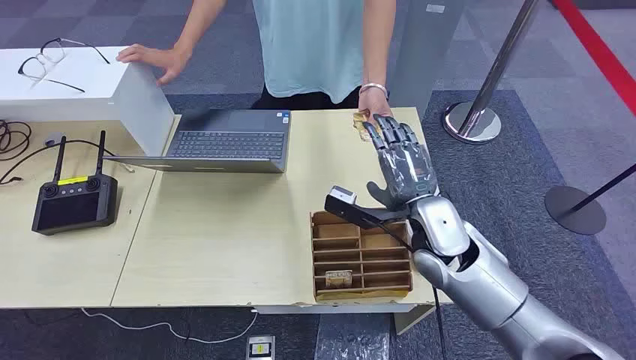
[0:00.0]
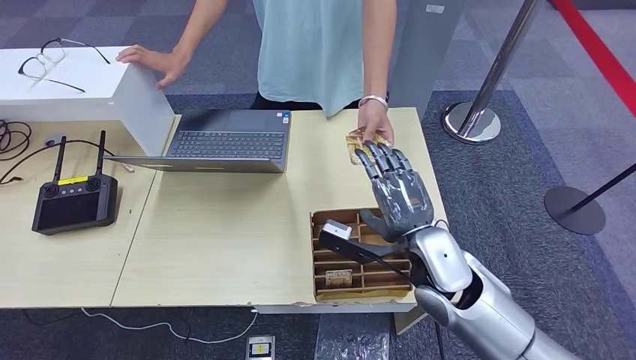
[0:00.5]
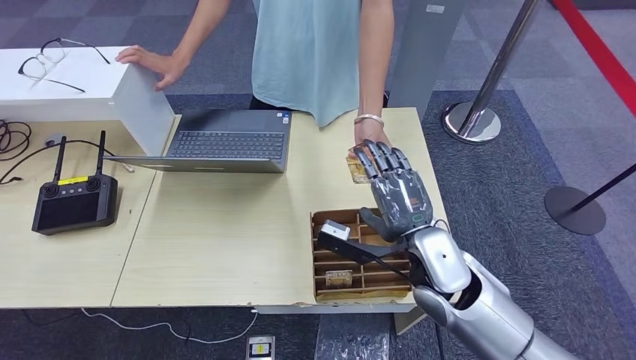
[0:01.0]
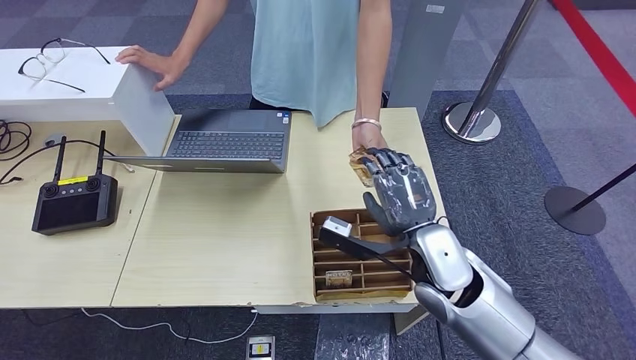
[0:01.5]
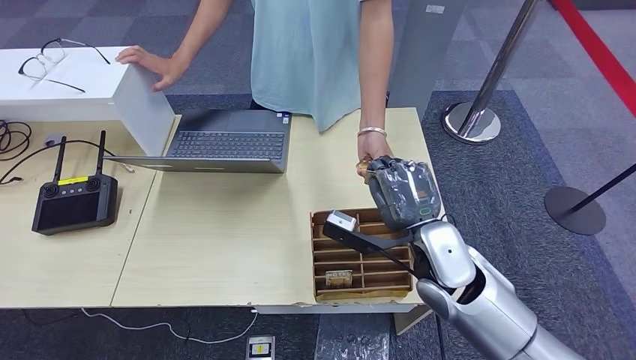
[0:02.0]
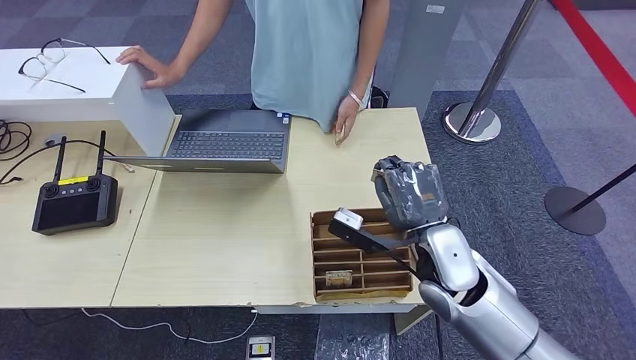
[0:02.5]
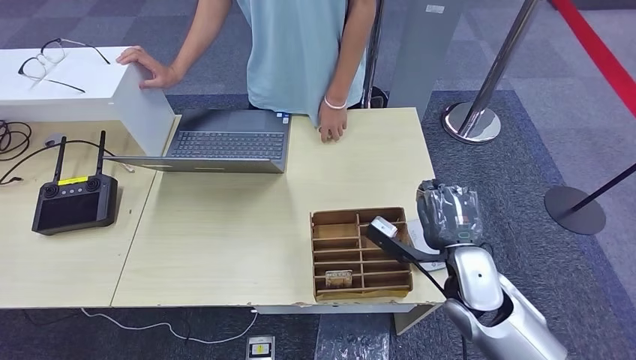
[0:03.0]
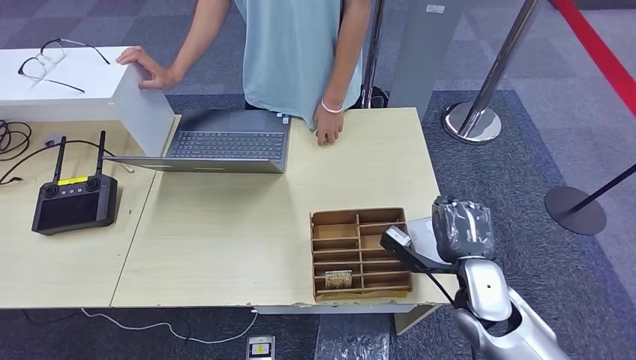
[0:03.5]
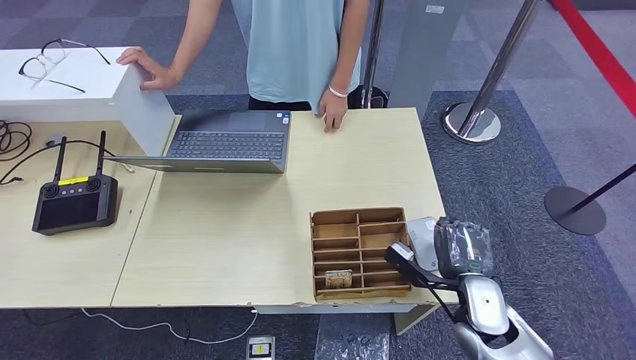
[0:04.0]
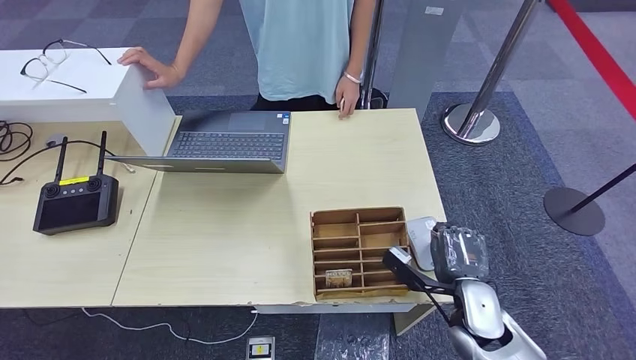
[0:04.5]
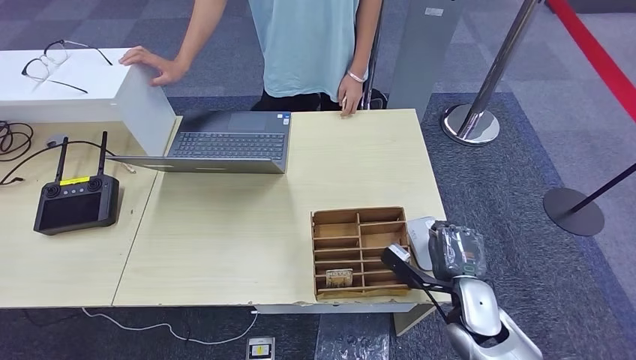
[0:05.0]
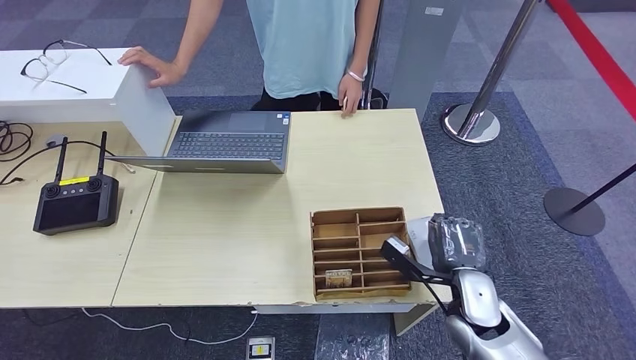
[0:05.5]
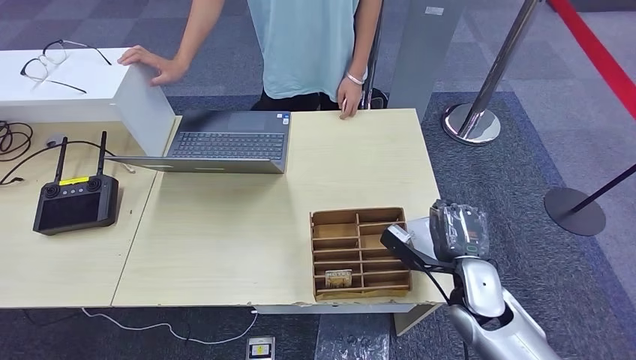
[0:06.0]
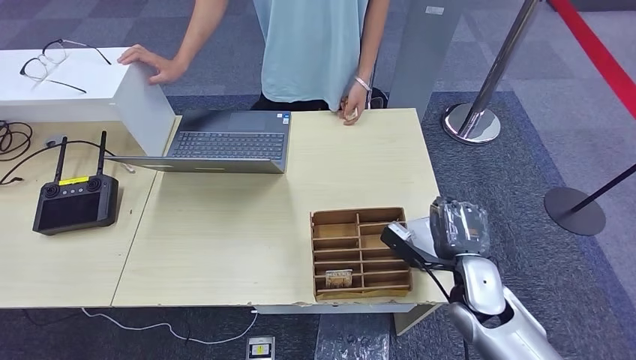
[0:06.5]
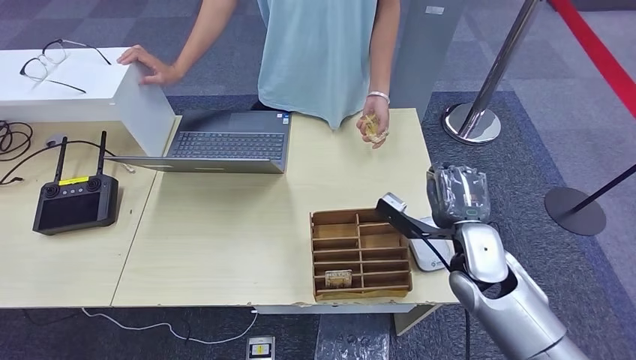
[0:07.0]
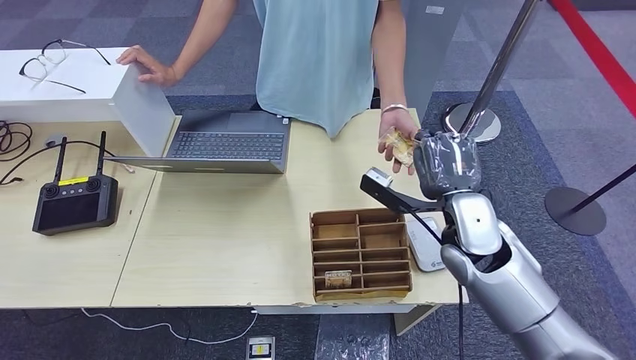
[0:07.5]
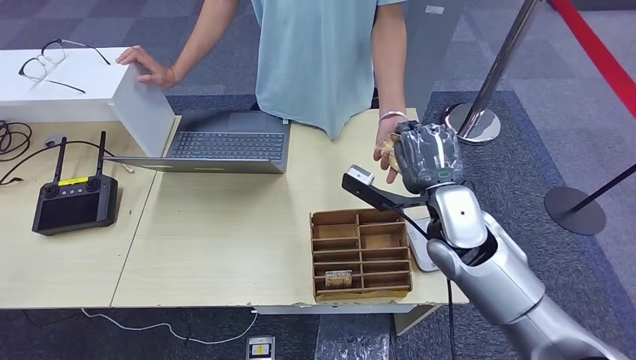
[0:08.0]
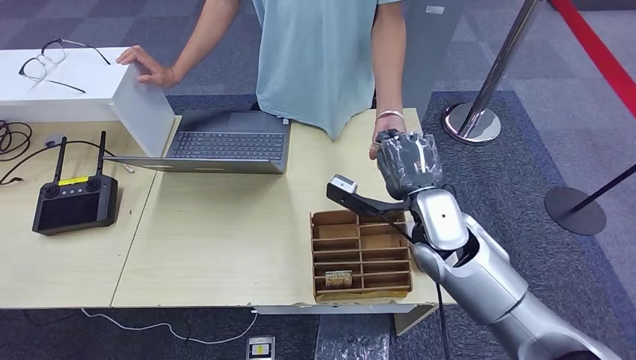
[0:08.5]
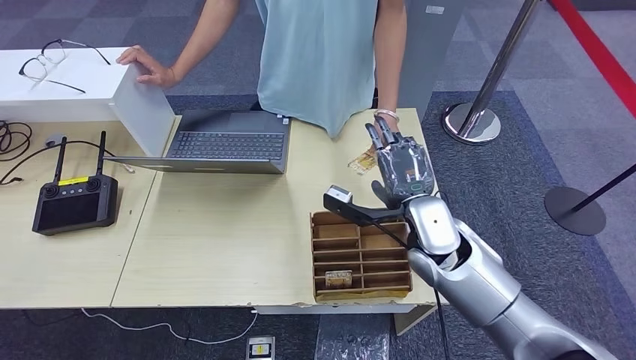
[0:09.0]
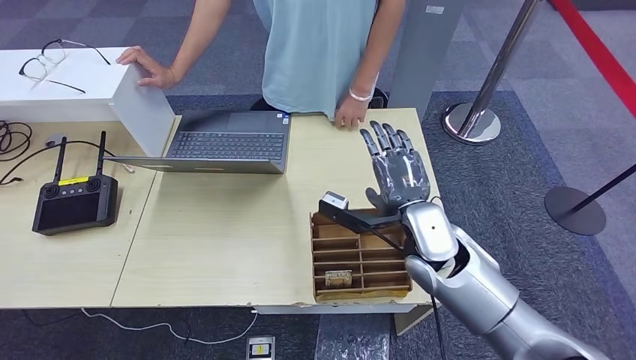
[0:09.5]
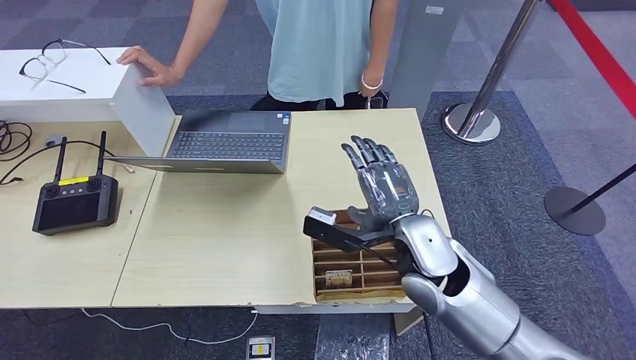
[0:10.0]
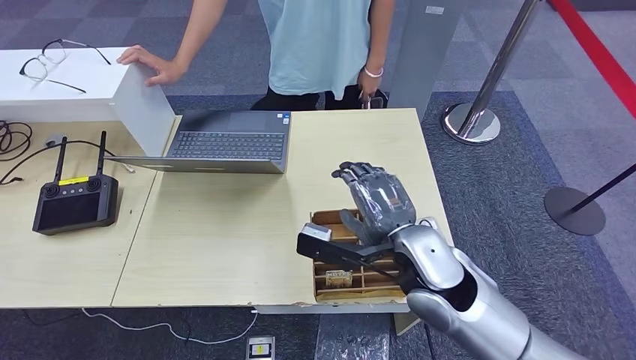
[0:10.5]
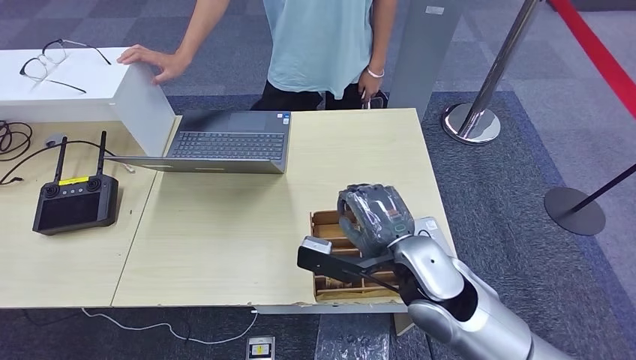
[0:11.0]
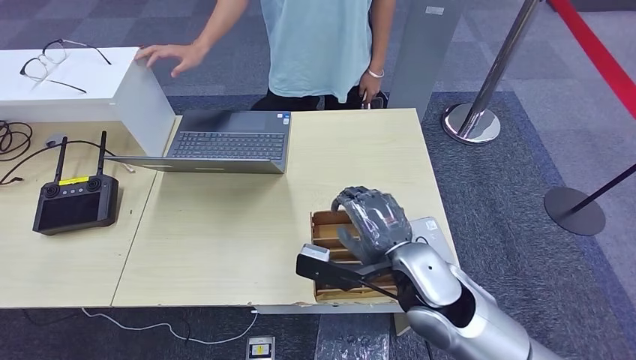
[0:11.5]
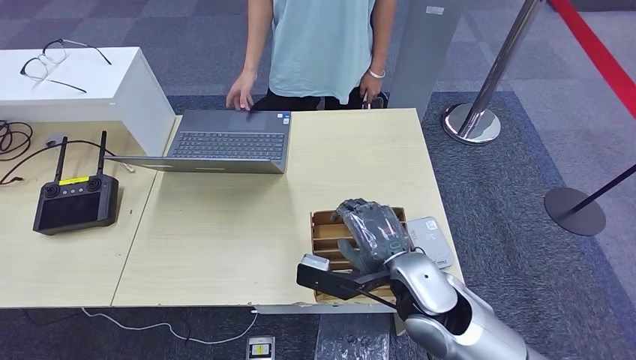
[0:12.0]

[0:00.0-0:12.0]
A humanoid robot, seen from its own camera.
Step, 0:00.0 to 0:02.5: Take the ID card from the person's hand.
Step, 0:03.0 to 0:04.5: Place the ID card on the card reader.
Step, 0:05.0 to 0:09.5: Hand the ID card to the person.
0:02.0 to 0:04.0: The right hand shifts approximately 15 cm downward and to the right.
0:04.0 to 0:06.0: The hands make only small movements.
0:06.0 to 0:08.0: The right hand travels upward, forward and to the left by about 15 cm.
0:08.0 to 0:10.0: The right hand travels to the left by approximately 5 cm.
0:10.0 to 0:12.0: The right hand ends up roughly 5 cm from where it was.

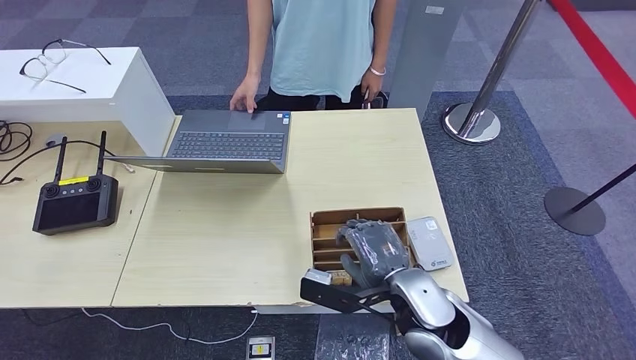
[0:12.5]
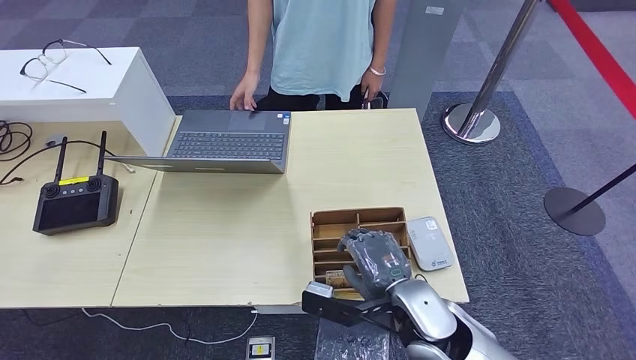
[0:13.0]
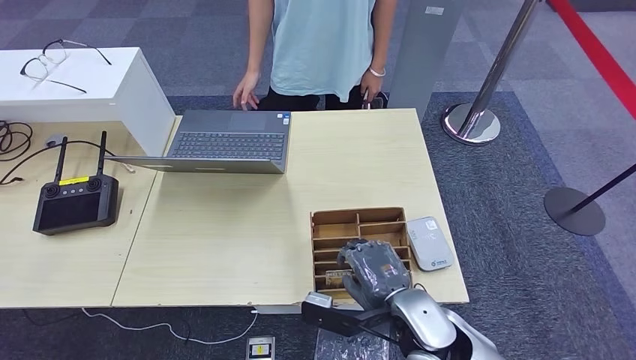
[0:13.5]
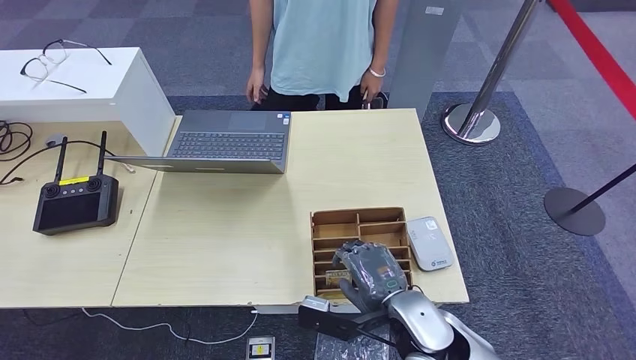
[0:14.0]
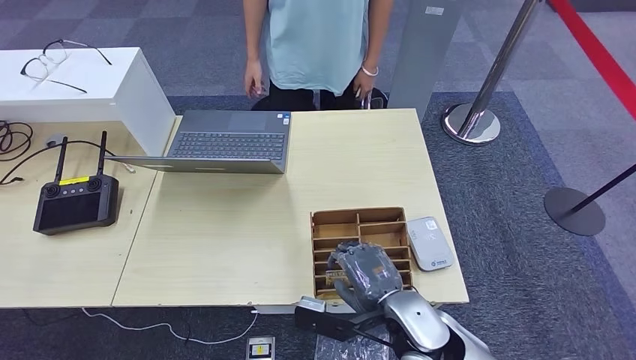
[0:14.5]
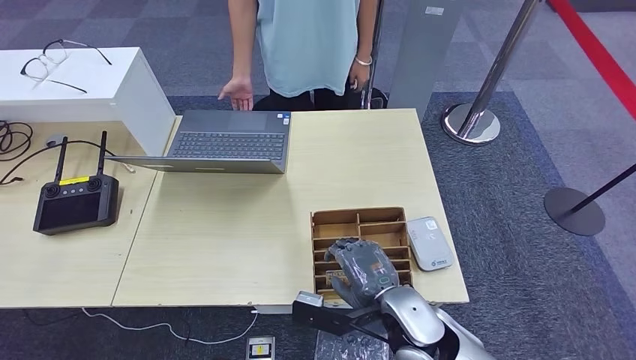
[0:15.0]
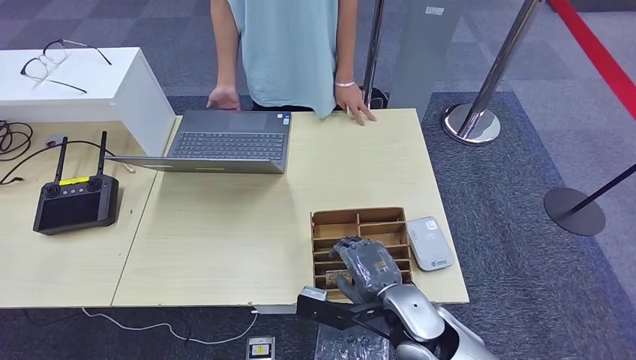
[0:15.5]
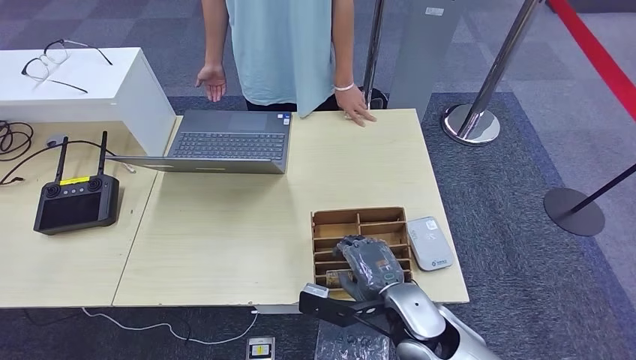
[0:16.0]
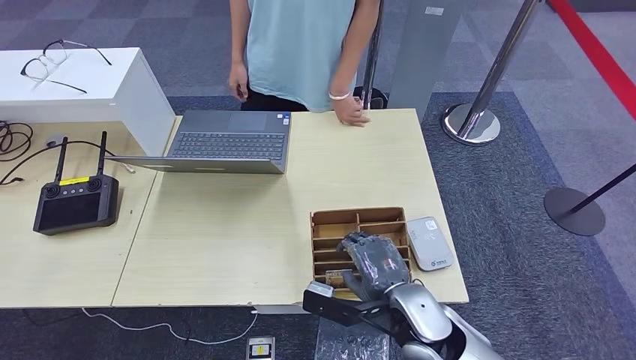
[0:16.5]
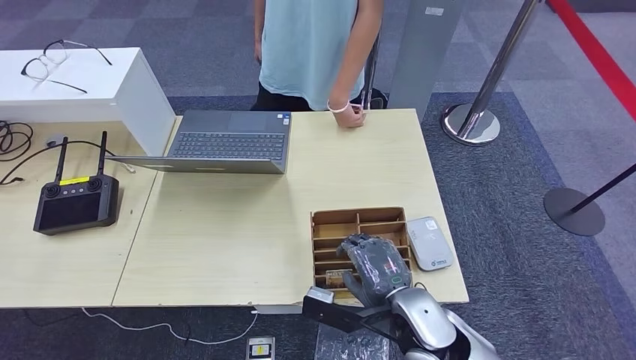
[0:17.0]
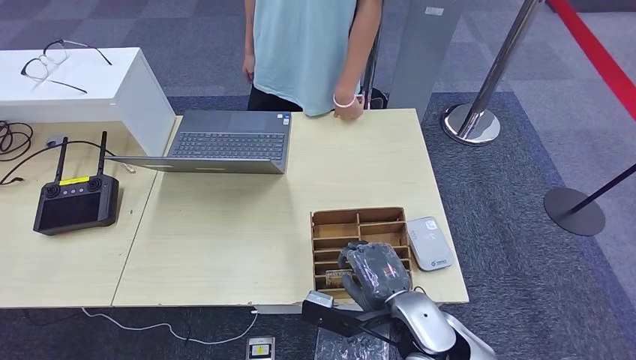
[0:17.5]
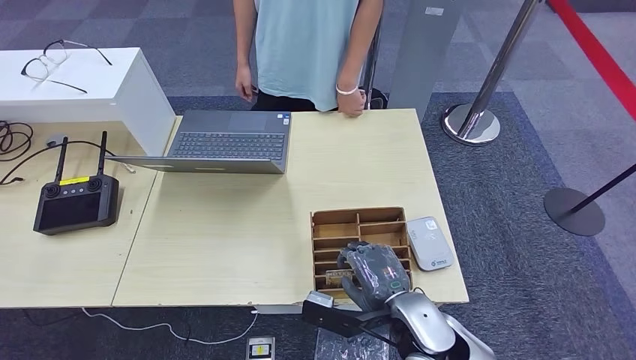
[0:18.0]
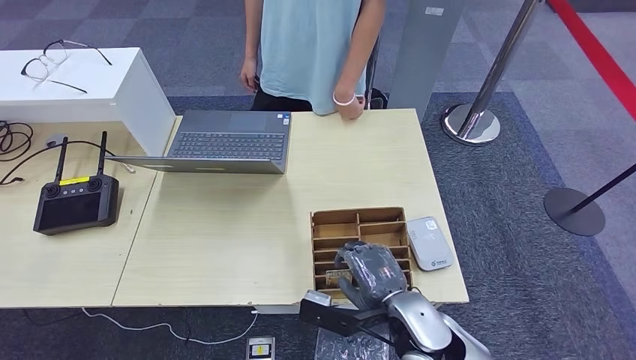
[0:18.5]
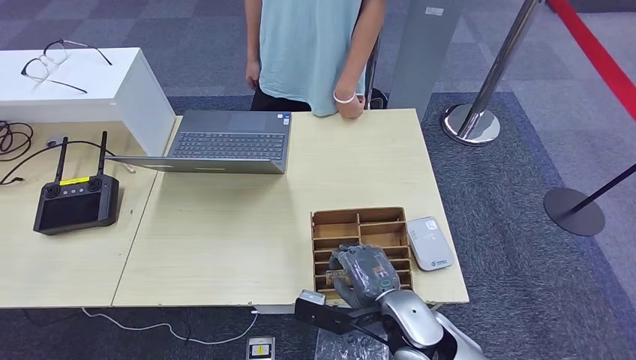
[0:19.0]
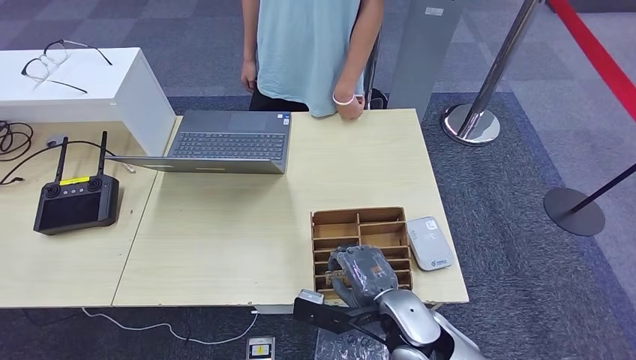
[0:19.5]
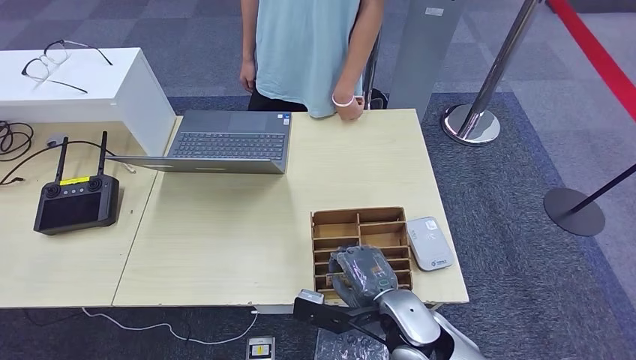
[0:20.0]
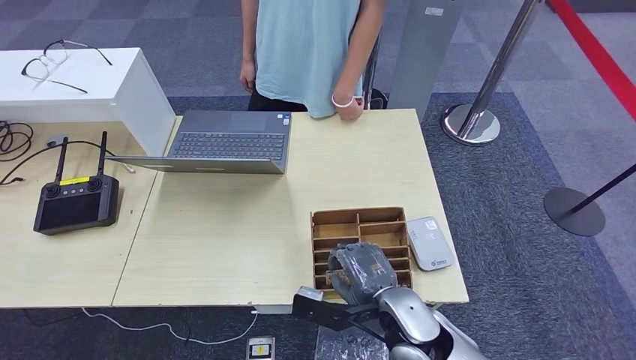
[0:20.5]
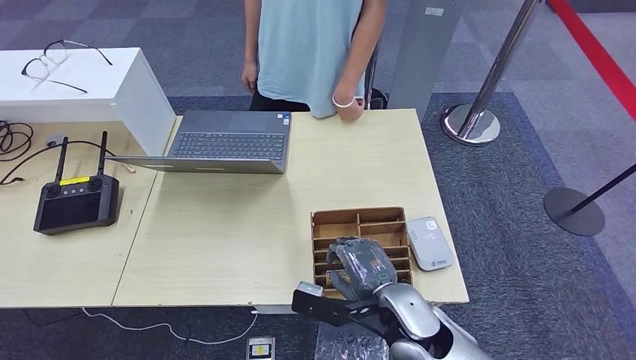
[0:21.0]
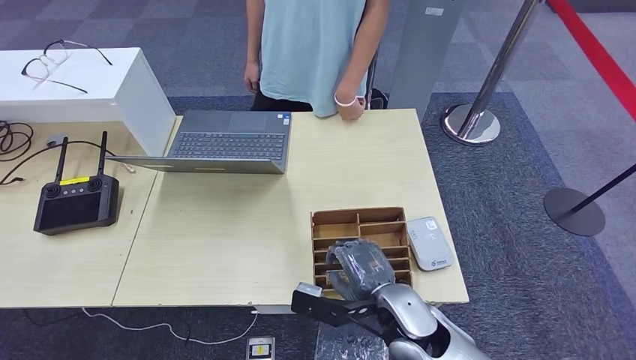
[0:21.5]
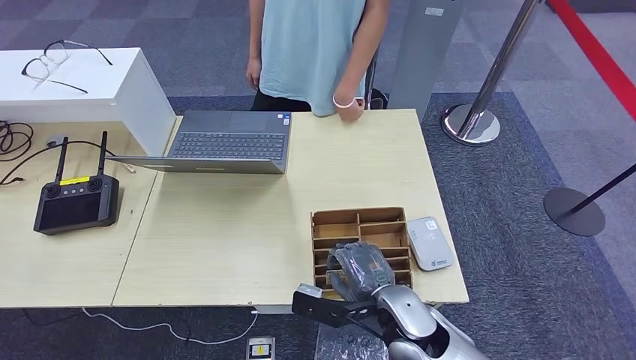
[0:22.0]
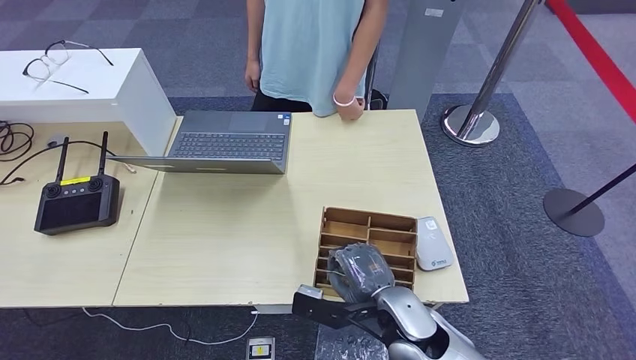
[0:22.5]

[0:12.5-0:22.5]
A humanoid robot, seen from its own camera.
0:12.5 to 0:20.5: The hands move only a little.
0:20.5 to 0:22.5: Both hands stay put.
